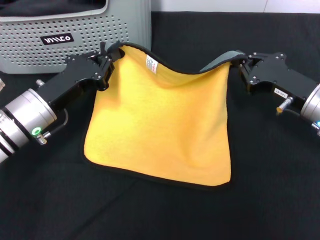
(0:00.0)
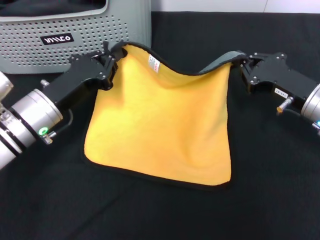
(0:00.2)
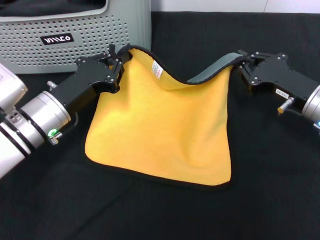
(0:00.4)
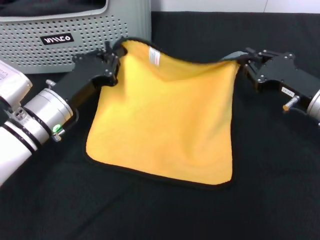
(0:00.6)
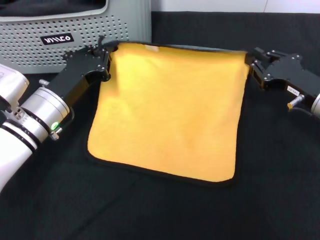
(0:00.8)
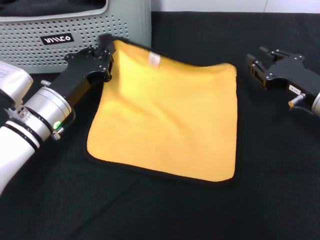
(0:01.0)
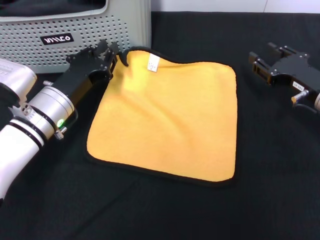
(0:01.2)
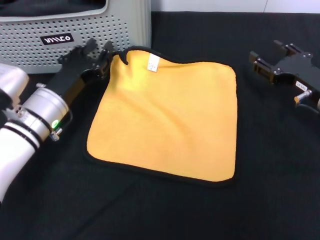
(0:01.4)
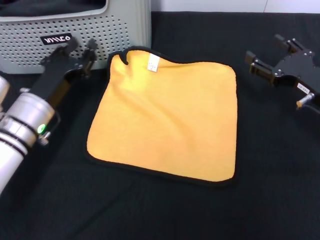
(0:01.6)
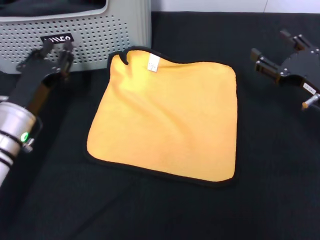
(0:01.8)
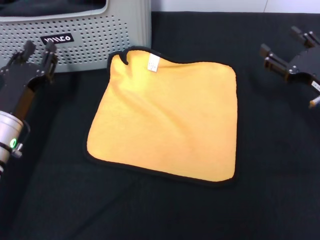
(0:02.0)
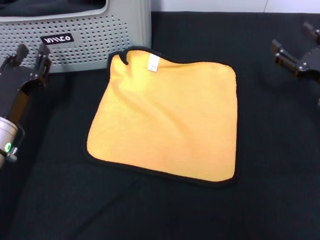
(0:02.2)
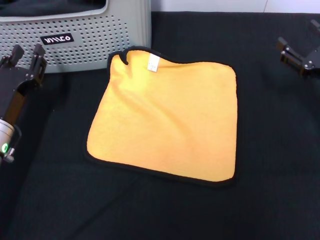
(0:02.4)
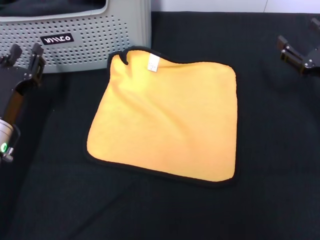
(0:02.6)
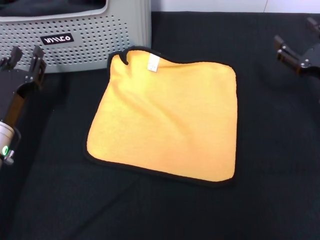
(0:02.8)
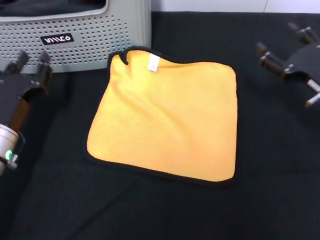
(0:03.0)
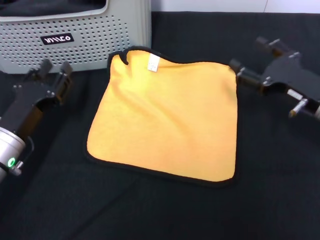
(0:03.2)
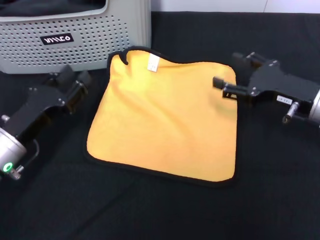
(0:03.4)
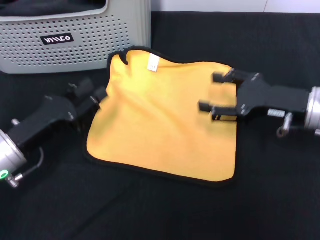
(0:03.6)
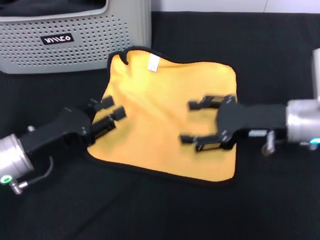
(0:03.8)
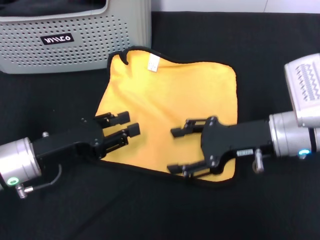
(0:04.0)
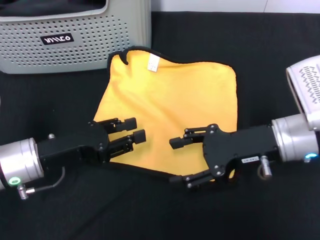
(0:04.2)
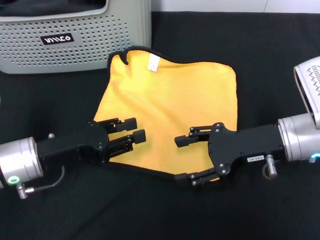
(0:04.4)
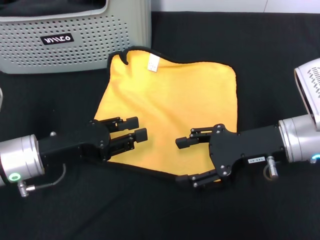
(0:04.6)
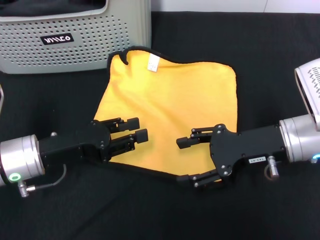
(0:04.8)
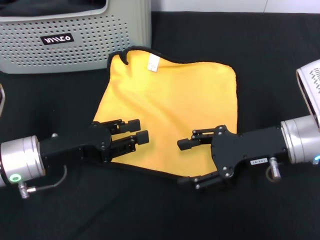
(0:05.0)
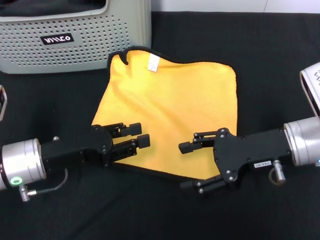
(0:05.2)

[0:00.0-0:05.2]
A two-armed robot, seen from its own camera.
Task of the whole recording: pick up the towel from the storage box and lay it flat on the black tablecloth.
0:00.0 to 0:01.8: The left gripper opens; the right gripper opens its fingers.
0:03.4 to 0:05.2: The right gripper ends up some 5 cm from where it was.

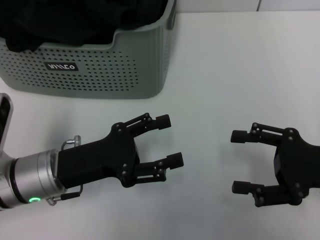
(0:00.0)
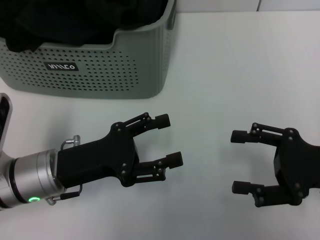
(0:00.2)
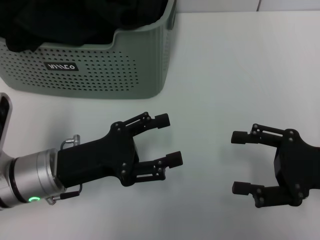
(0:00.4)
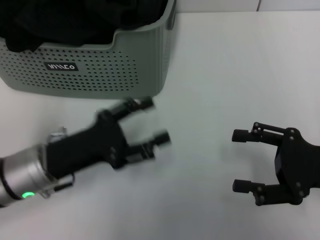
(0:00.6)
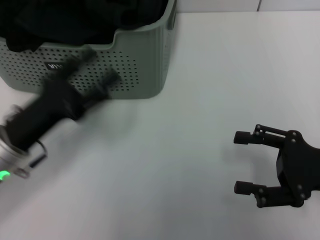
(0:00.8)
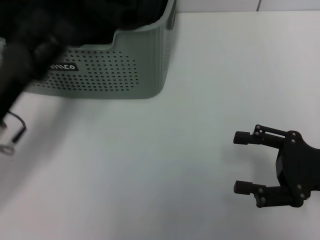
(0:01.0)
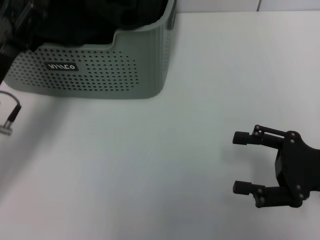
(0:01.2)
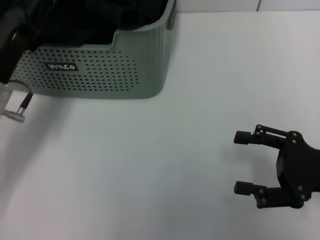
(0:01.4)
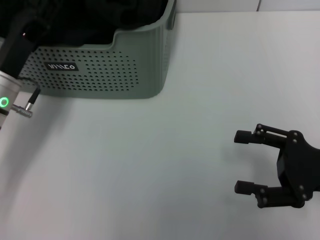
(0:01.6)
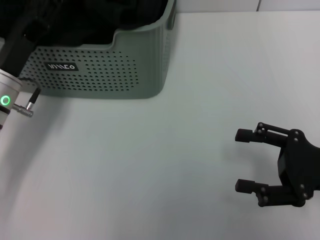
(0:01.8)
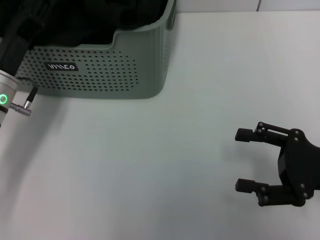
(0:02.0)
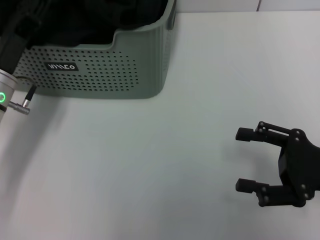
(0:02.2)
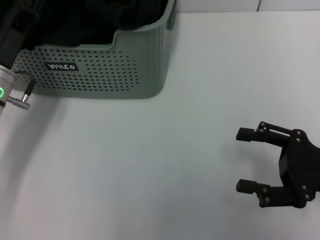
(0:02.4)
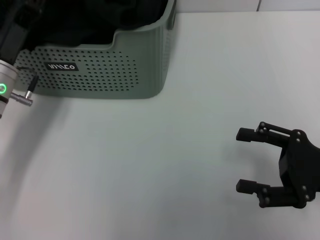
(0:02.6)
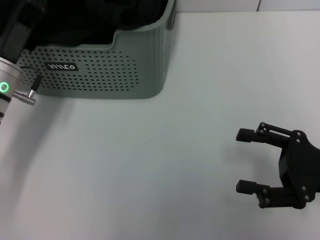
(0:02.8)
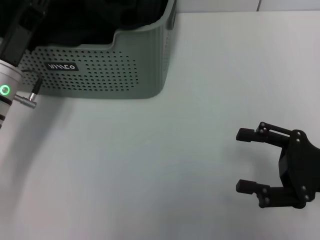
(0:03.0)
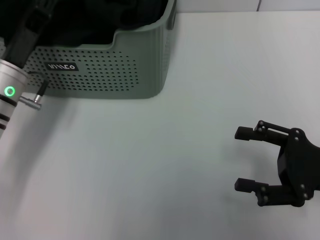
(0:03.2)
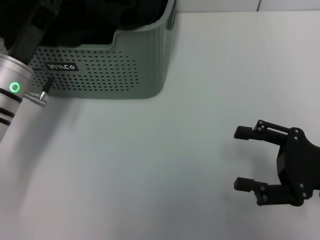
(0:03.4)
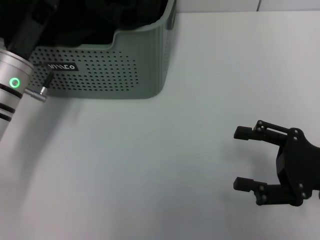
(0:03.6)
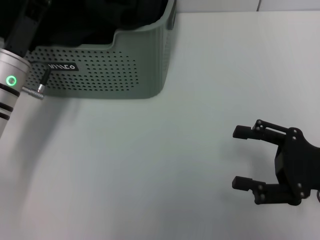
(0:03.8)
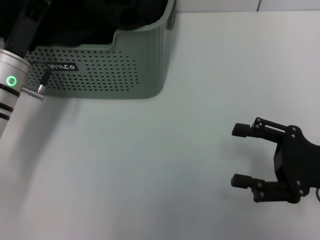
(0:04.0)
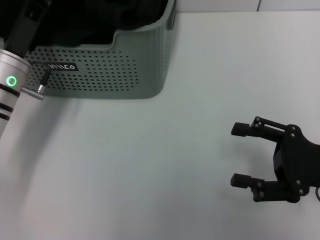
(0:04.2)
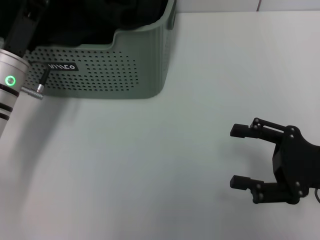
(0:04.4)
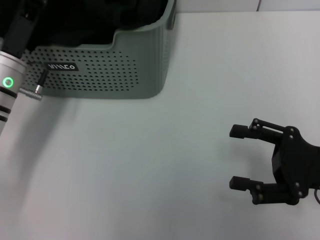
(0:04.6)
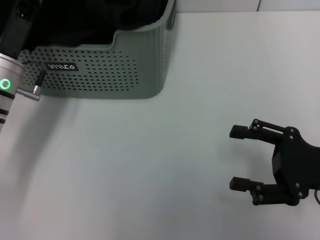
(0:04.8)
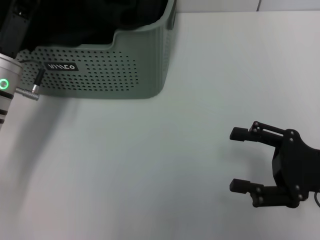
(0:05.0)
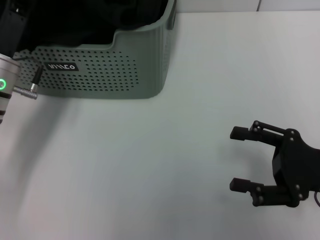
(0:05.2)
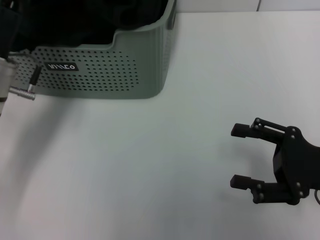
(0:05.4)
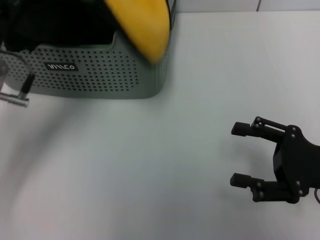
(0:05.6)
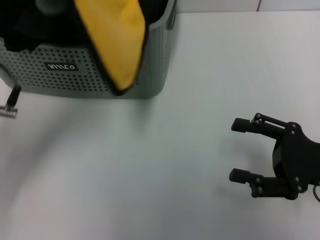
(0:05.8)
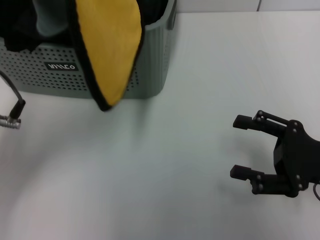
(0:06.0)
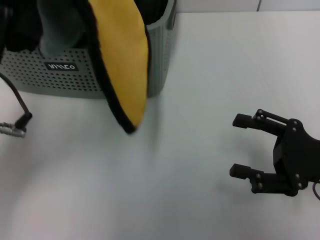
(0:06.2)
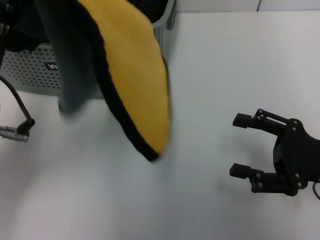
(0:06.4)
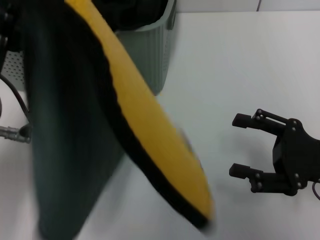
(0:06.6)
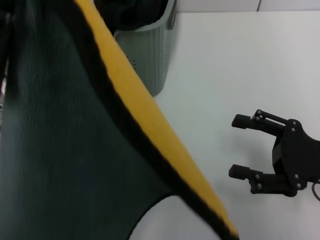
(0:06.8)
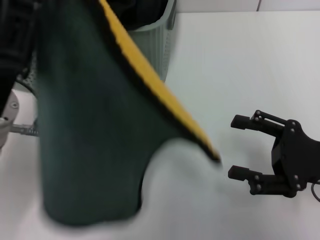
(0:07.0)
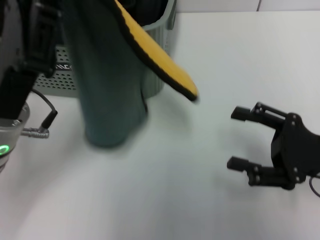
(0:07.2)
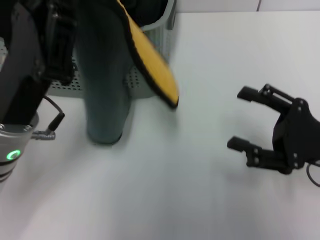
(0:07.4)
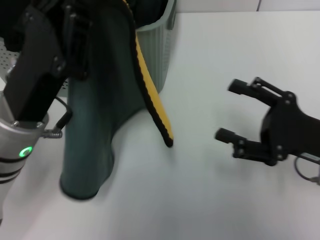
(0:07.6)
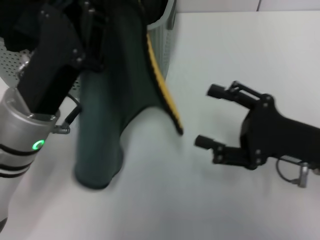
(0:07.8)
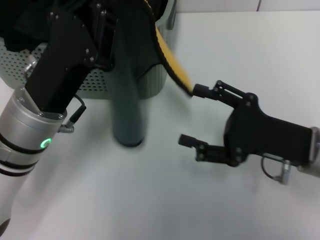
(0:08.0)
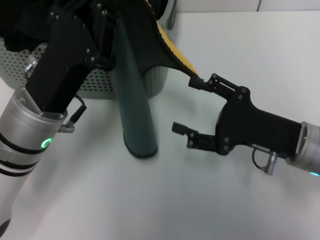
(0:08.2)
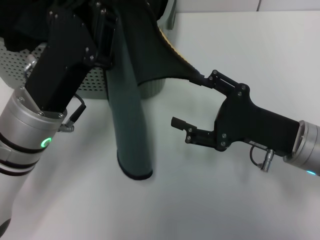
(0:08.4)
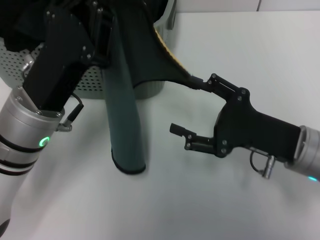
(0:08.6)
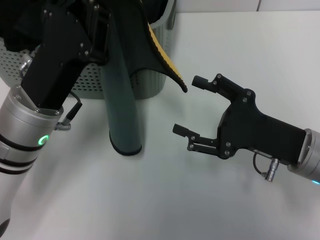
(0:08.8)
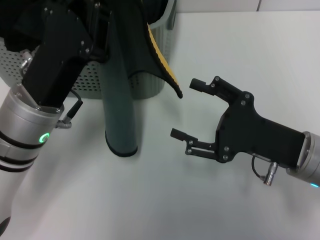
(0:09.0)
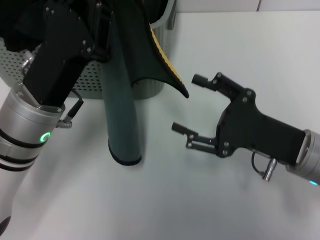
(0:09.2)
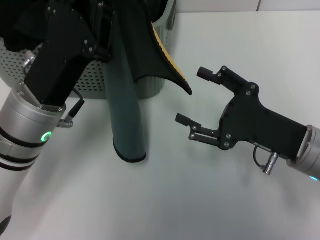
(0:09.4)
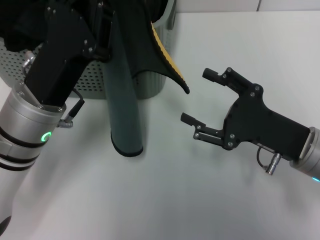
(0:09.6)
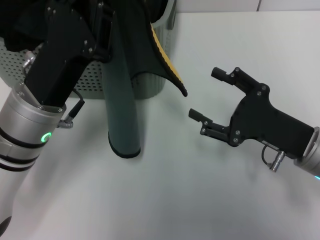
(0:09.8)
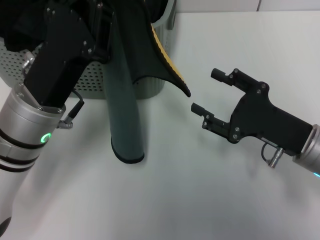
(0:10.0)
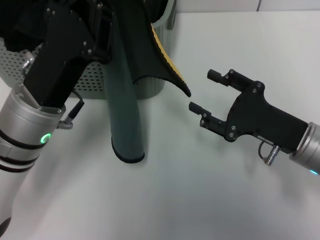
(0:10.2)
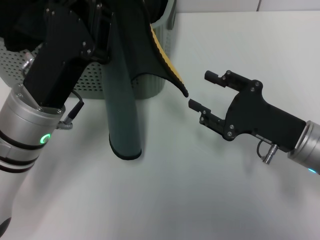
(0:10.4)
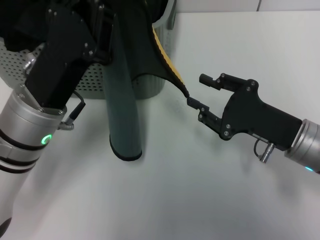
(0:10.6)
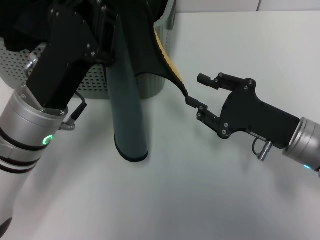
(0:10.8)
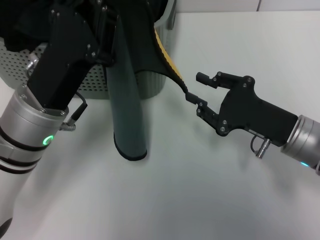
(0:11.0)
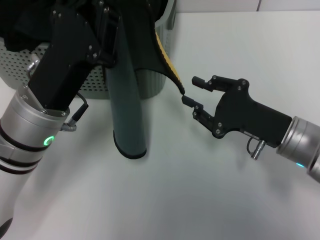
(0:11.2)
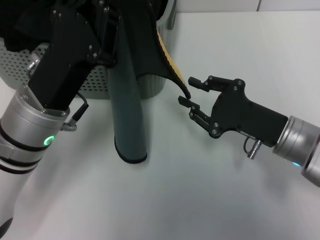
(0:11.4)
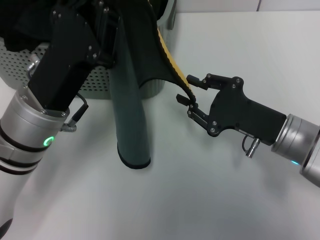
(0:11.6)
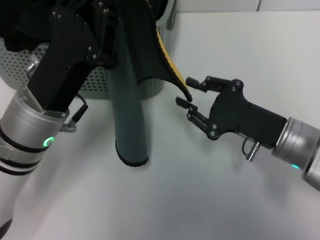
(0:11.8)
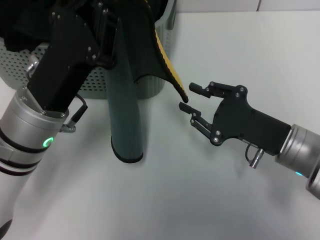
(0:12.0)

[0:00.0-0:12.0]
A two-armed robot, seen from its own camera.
Task of the whole recording: pick up the towel from the storage box and lay it flat on the table.
Step, 0:00.0 to 0:05.2: Pick up a towel with the left gripper.
0:00.0 to 0:01.6: The left gripper heads forward, covering some 10 cm.
0:01.6 to 0:04.4: There are only small adjustments of the grippers.
0:04.4 to 0:06.0: The left gripper moves backward and upward, some 10 cm, and closes.
0:06.0 to 0:07.6: The left gripper ends up roughly 5 cm from where it was.
0:07.6 to 0:09.0: The right gripper heads to the left, covering about 5 cm.
0:09.0 to 0:12.0: There are only small adjustments of the grippers.

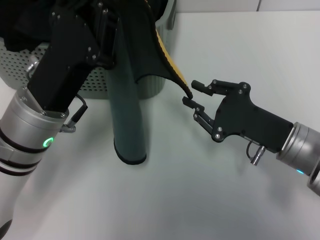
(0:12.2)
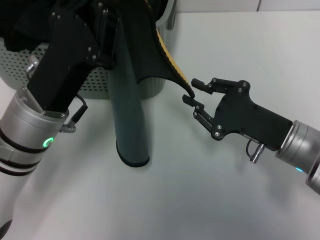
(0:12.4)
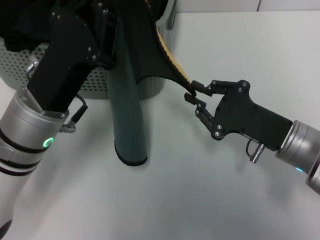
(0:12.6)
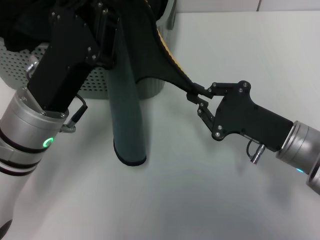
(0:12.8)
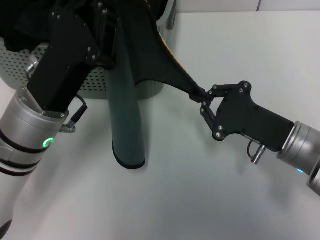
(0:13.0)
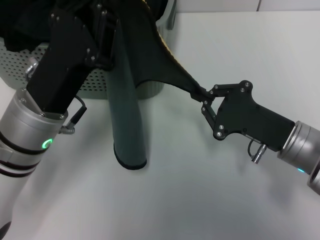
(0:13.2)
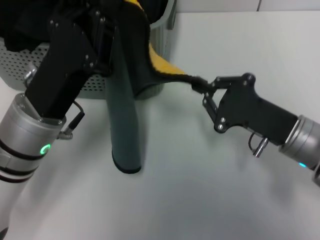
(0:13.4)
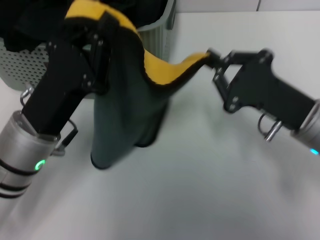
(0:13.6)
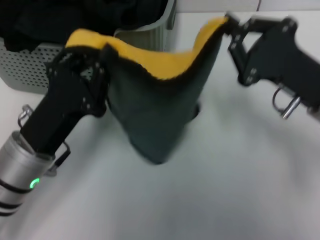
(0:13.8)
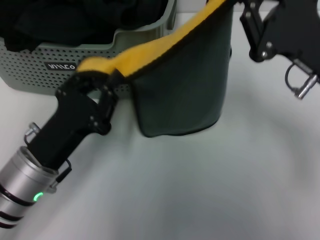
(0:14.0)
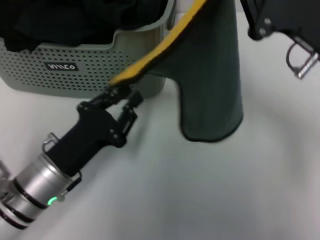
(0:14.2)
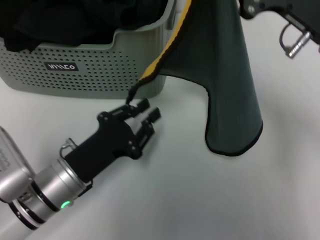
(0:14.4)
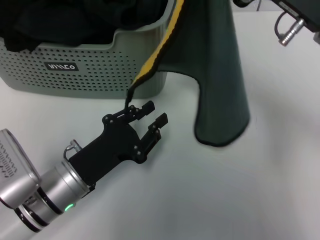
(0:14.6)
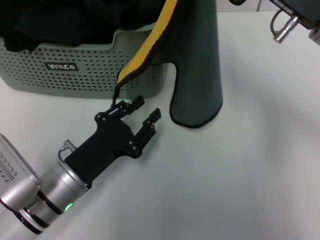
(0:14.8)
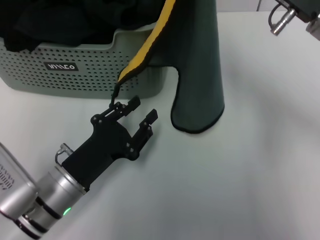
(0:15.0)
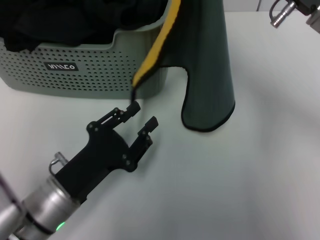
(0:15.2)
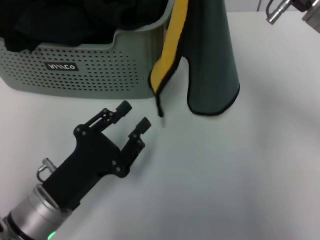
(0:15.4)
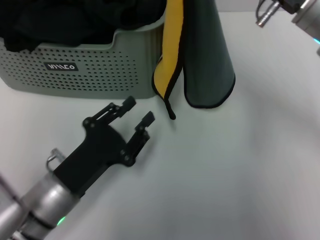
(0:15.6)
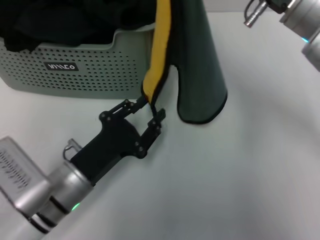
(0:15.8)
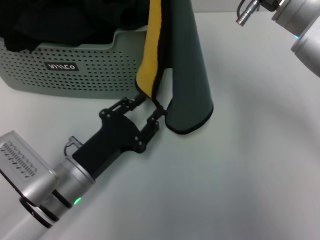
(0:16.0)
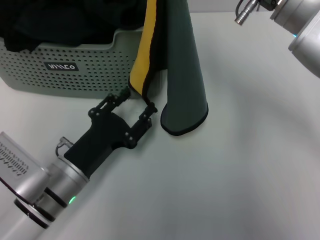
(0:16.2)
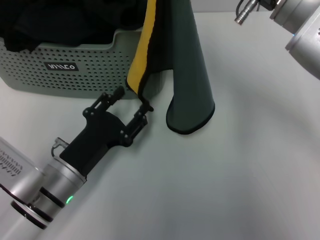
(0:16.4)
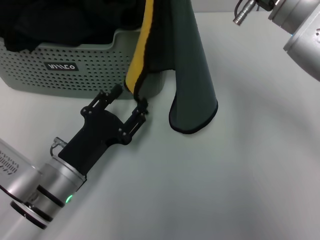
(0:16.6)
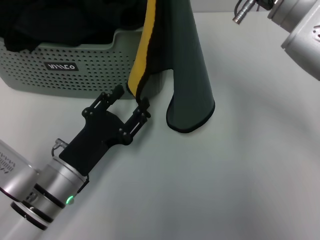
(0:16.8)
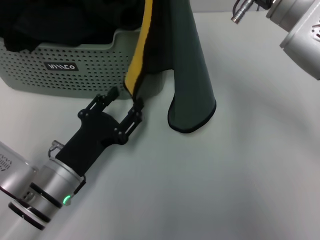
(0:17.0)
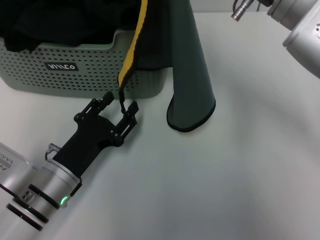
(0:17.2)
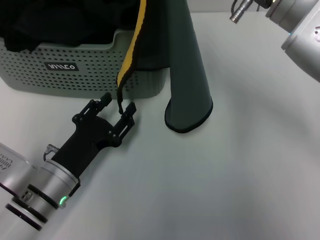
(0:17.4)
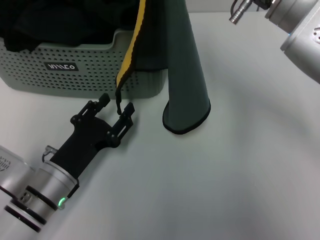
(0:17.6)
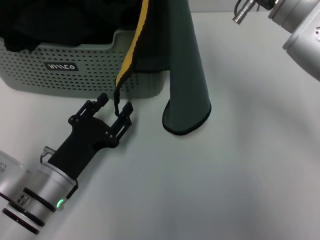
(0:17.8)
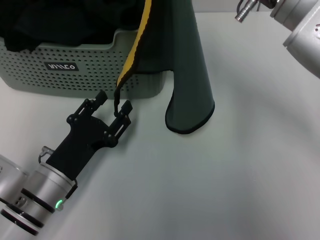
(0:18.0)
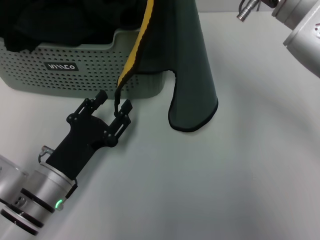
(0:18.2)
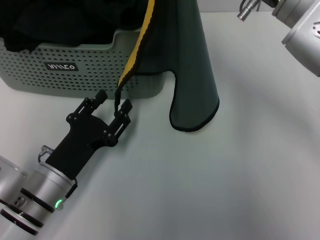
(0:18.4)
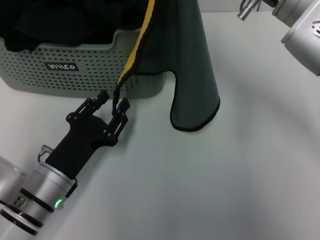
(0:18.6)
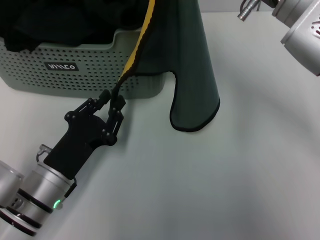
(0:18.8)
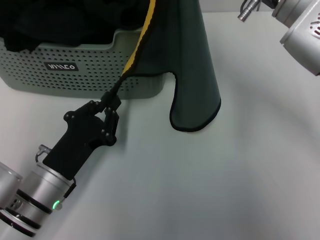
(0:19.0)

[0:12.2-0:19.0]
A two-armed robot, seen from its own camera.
Task of the whole recording: pick up the towel from the storage box and lay it flat on the table.
0:12.2 to 0:13.6: The right gripper closes its fingers.
0:13.6 to 0:15.0: The right gripper shifts some 15 cm upward. The left gripper is displaced downward by about 5 cm, and opens up.
0:16.2 to 0:17.6: There are only small adjustments of the grippers.
0:17.6 to 0:19.0: The left gripper closes.
